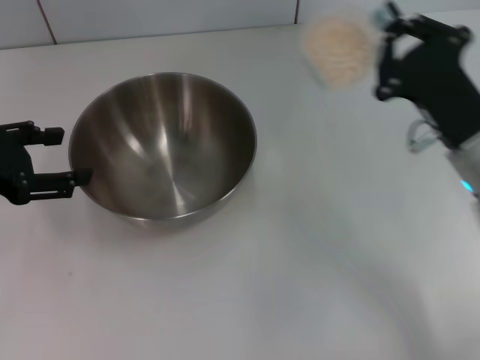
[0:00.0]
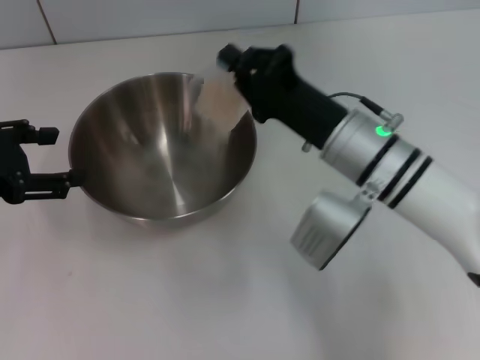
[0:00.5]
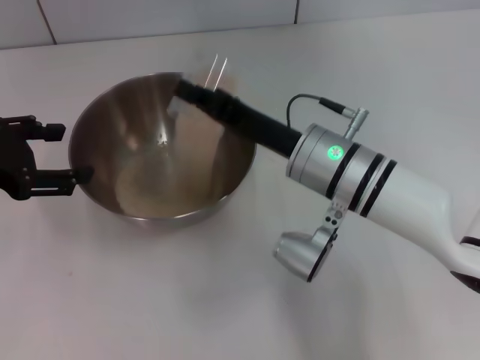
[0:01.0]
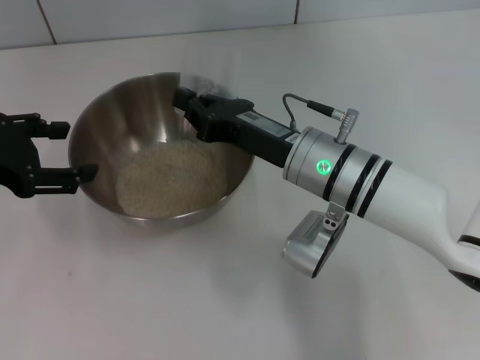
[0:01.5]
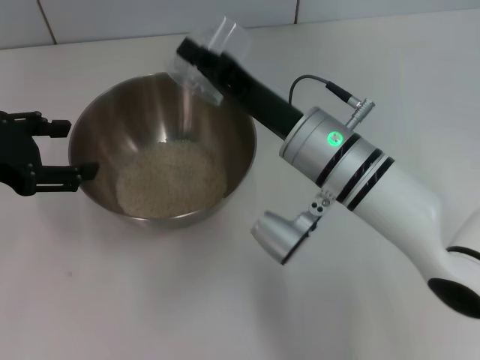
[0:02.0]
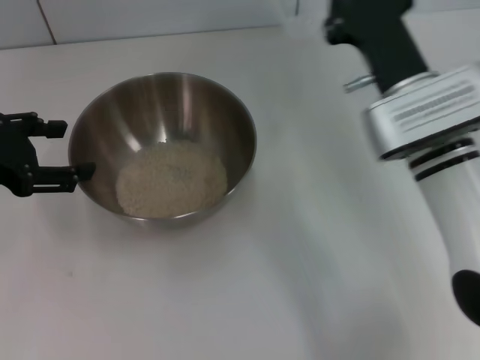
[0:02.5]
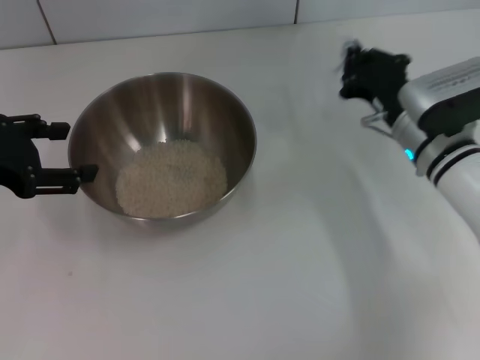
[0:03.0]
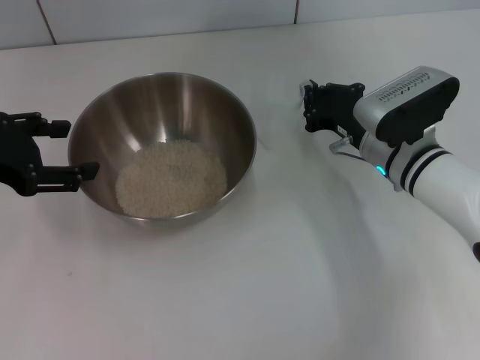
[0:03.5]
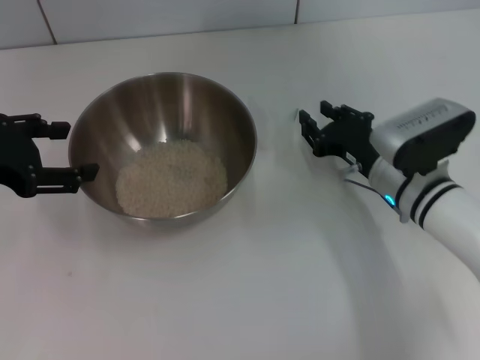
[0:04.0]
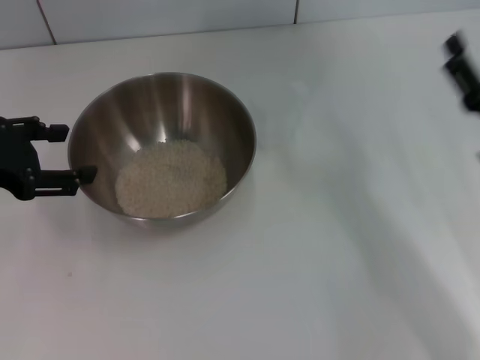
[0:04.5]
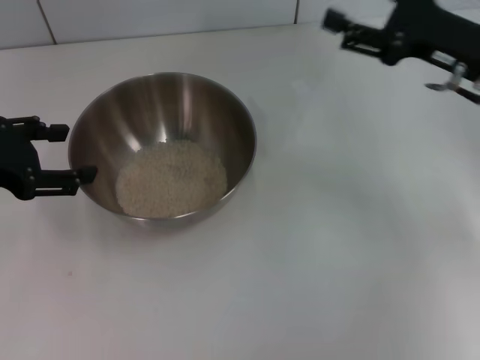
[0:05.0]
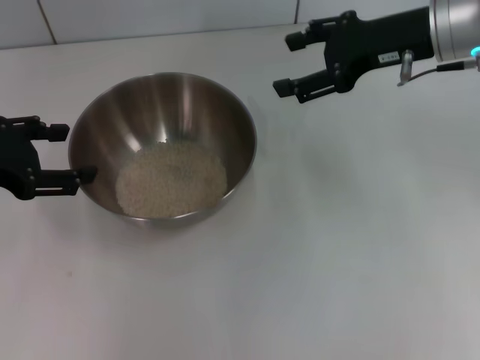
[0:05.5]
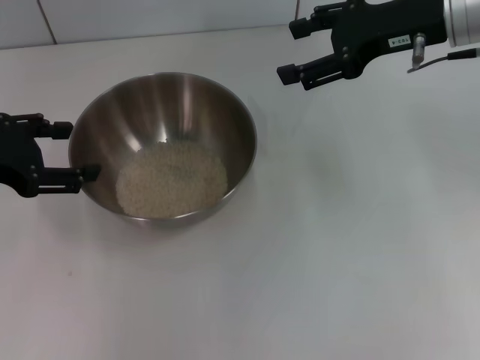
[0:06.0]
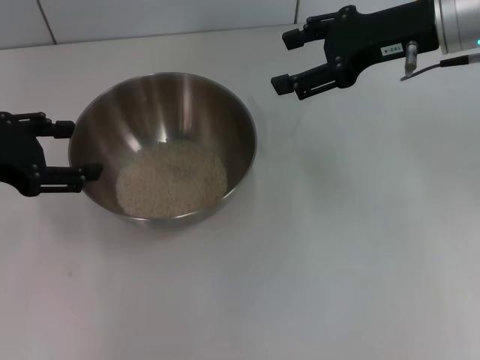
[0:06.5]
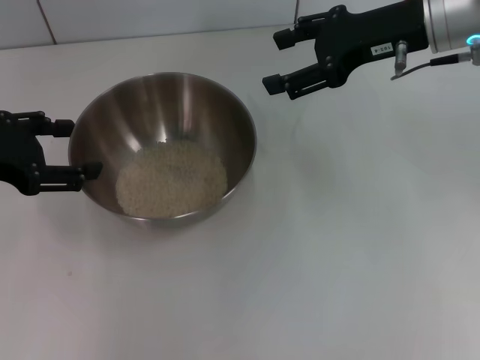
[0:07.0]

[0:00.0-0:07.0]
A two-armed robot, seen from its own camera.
Task of the whole recording: Place the bowl in the middle of the table with one hand and pour the rice from the grain cup into it with the other hand.
Step, 0:00.0 to 0:02.0: Pour the rice from the cup into the bowl with the right gripper.
Step, 0:02.5 to 0:04.0: Place the cup on the table with the right gripper.
0:00.0 to 0:02.0: The right gripper shifts approximately 15 cm to the left.
0:02.0 to 0:03.5: The right gripper is displaced to the right and downward by some 10 cm.
0:03.5 to 0:05.0: The right gripper travels upward and to the right by approximately 15 cm, and opens its fingers.
0:05.0 to 0:07.0: The right gripper heads upward and to the left, covering about 10 cm.

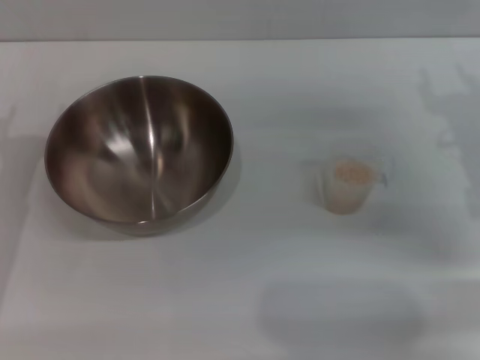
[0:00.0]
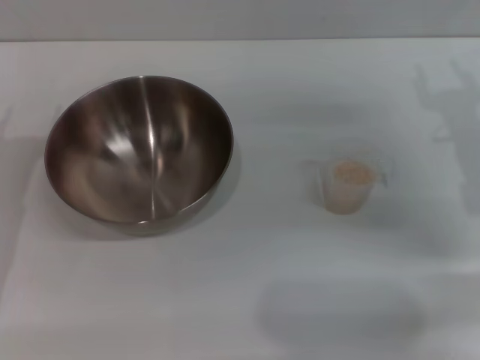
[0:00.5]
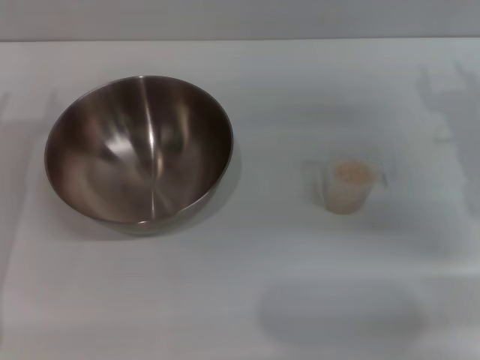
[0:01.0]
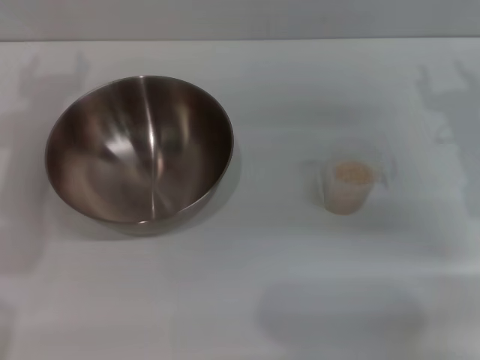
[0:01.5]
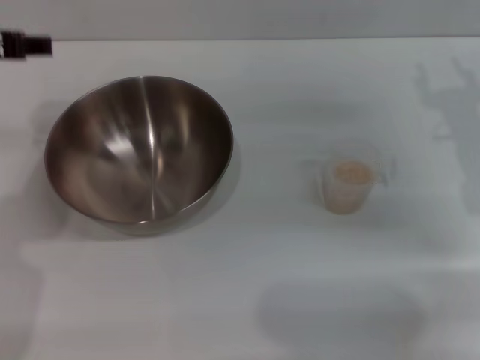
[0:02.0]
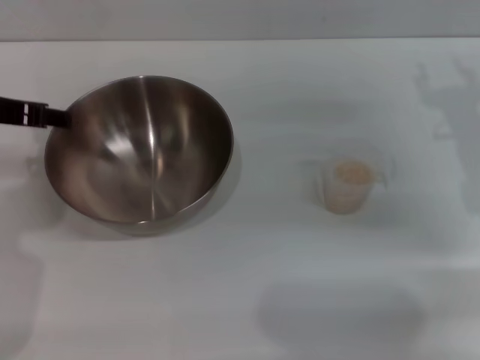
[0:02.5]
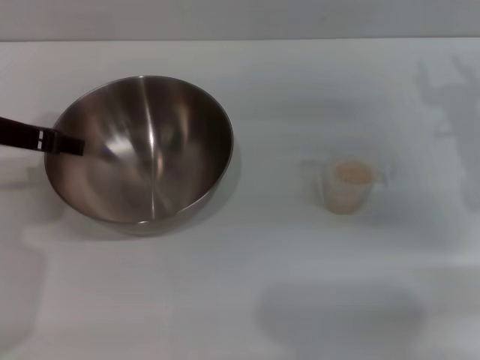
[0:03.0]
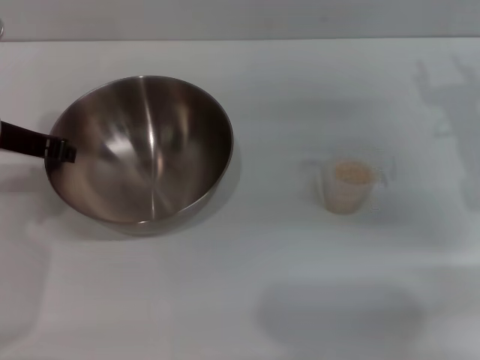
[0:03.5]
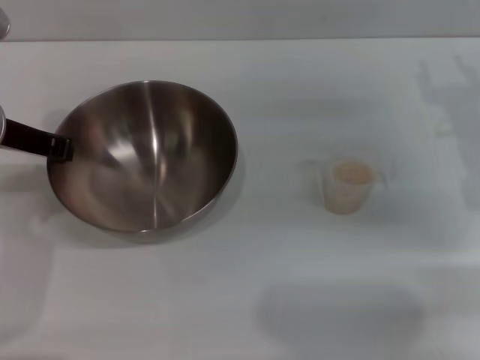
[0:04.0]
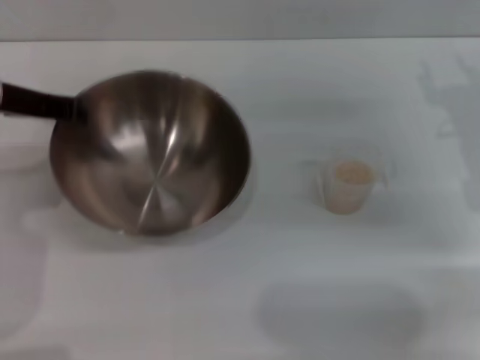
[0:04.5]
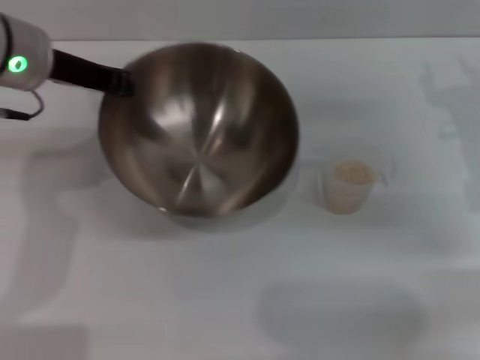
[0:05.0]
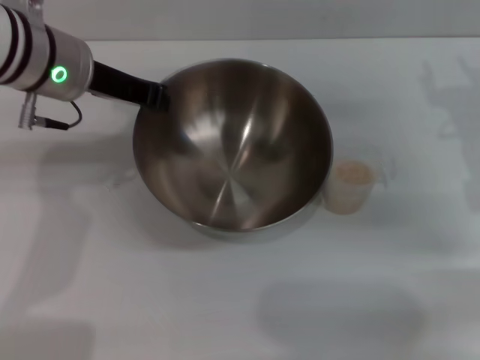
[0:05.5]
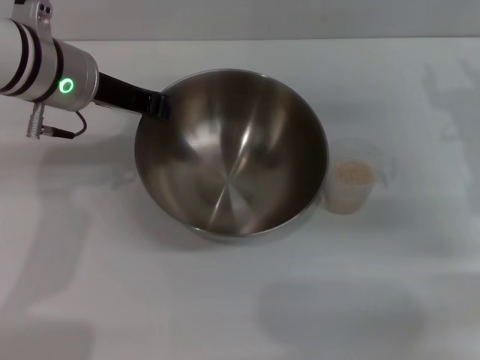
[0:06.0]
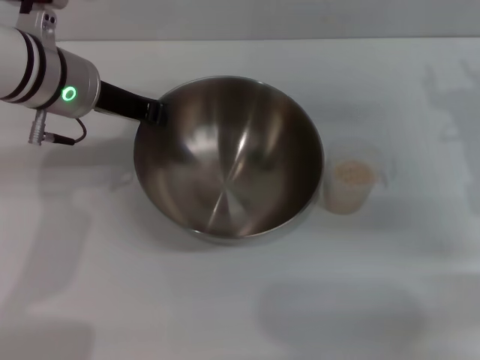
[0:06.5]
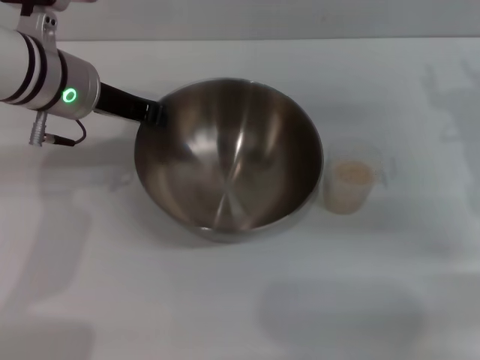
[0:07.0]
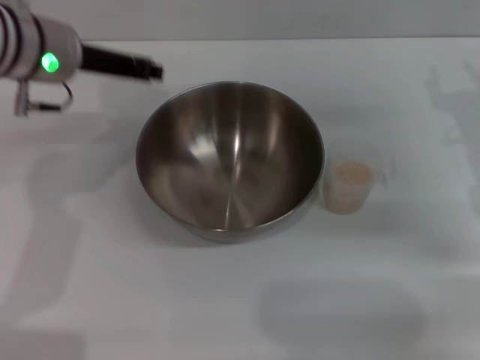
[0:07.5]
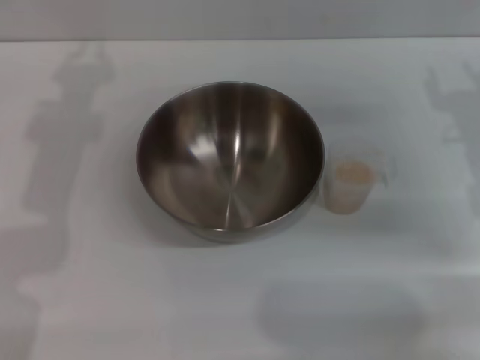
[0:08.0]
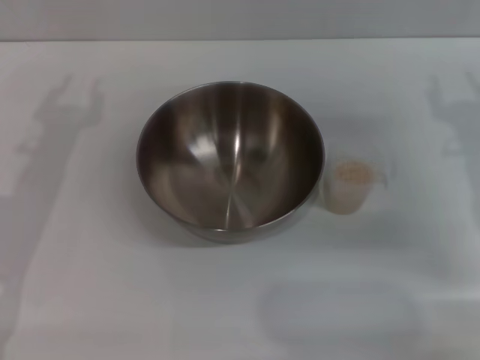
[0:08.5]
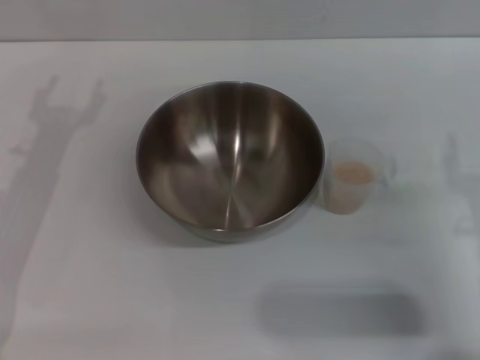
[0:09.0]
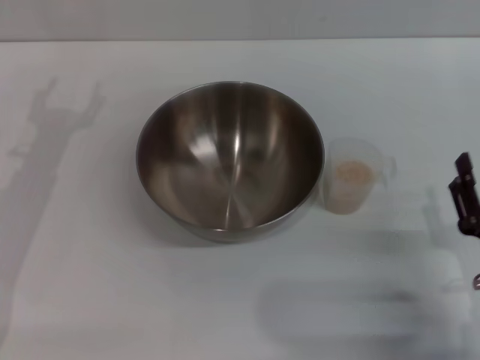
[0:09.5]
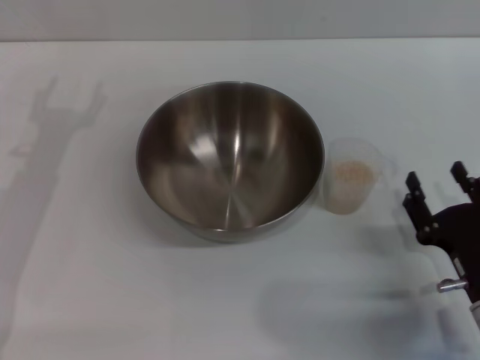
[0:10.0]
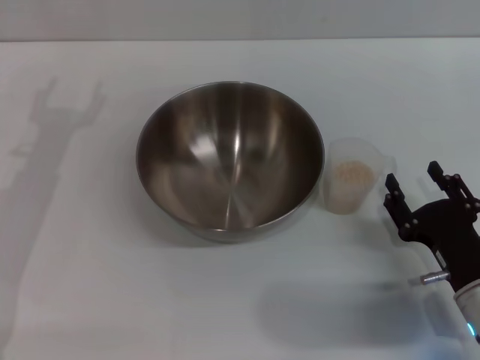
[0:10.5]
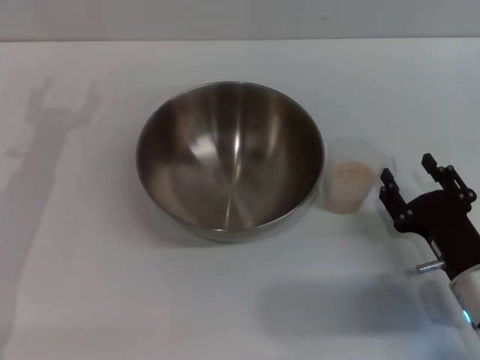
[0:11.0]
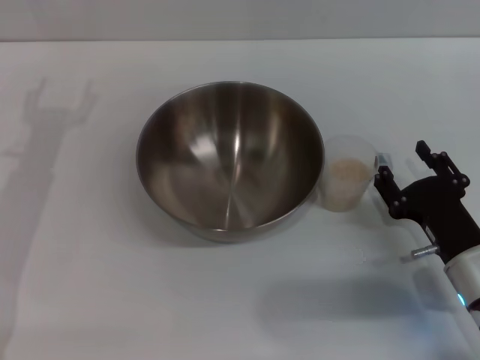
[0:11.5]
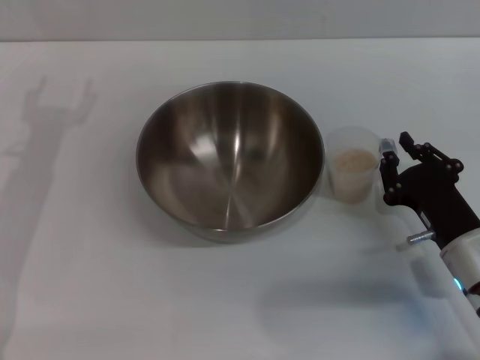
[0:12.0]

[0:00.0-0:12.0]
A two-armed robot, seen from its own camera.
Task of the whole recording: Place the bowl in the middle of the table with one hand and pour the rice from the grain cup into it with the other hand.
Step, 0:00.0 to 0:05.0: Pick up the bowl with the left gripper.
Step, 0:05.5 to 0:07.5: Place the bowl in the center of view with the left gripper.
0:00.0 to 0:02.0: The left gripper heads upward and forward, covering about 15 cm.
0:02.0 to 0:04.0: The left gripper goes some 5 cm downward, and closes up.
0:04.0 to 0:06.0: The left gripper heads to the right, covering approximately 5 cm.
0:06.0 to 0:08.0: The left gripper goes roughly 10 cm to the left.
0:08.0 to 0:10.0: The right gripper is displaced backward and downward by approximately 20 cm.
0:10.0 to 0:12.0: The right gripper goes roughly 5 cm forward, and closes up.

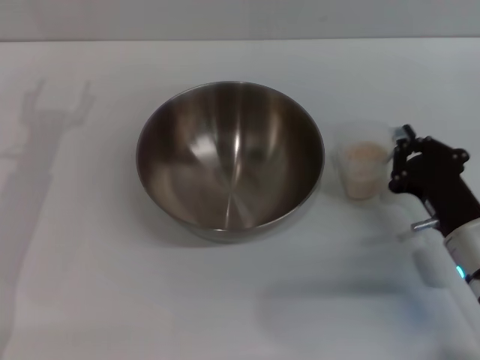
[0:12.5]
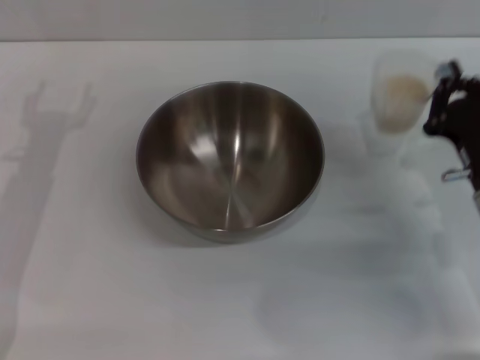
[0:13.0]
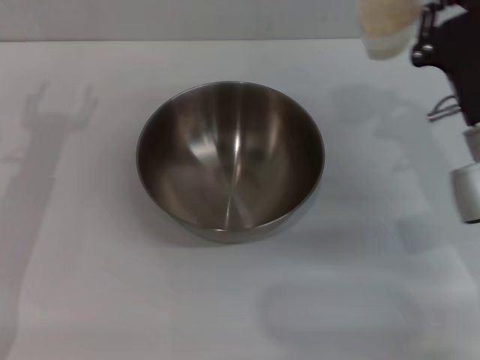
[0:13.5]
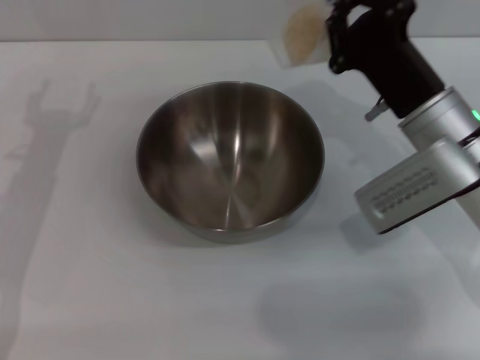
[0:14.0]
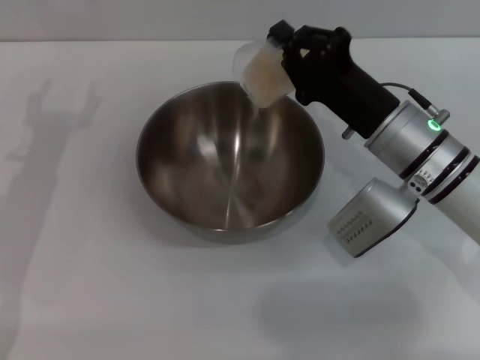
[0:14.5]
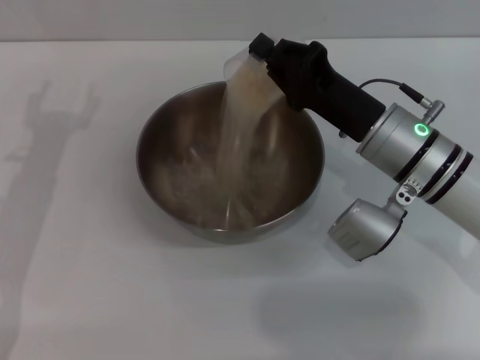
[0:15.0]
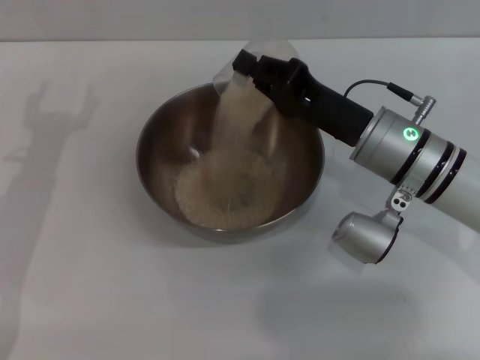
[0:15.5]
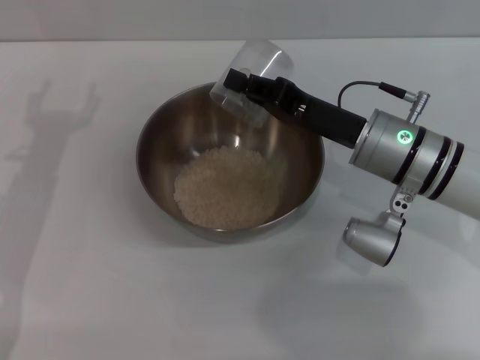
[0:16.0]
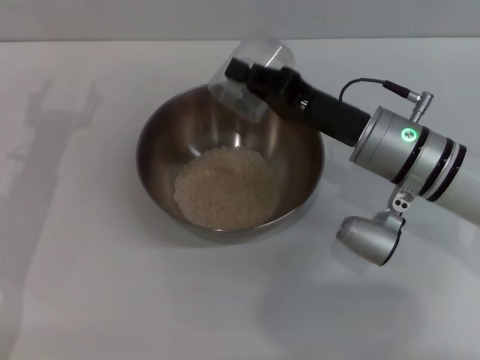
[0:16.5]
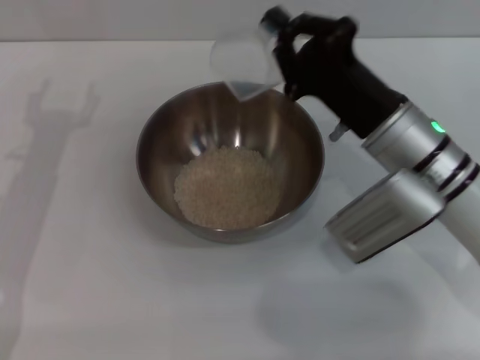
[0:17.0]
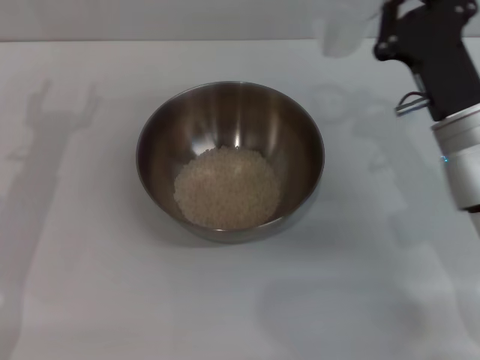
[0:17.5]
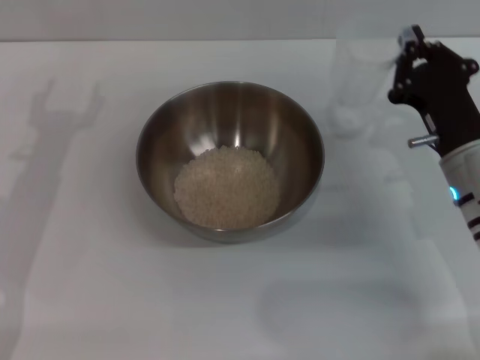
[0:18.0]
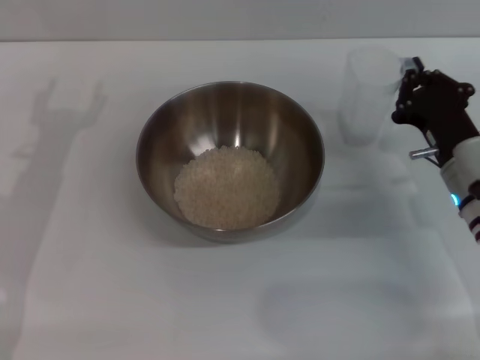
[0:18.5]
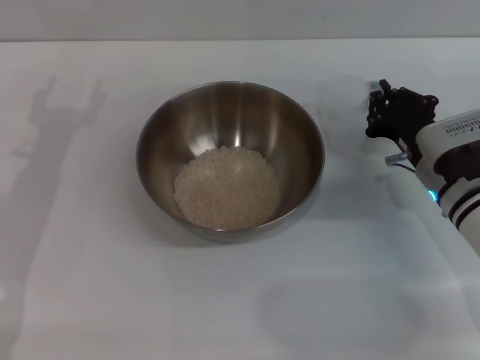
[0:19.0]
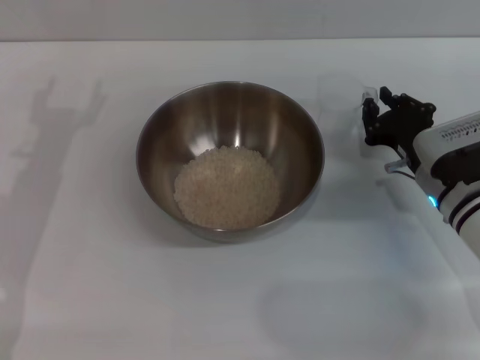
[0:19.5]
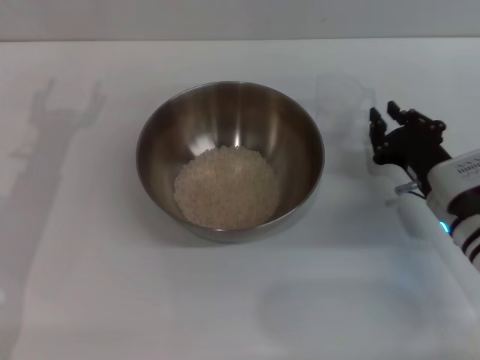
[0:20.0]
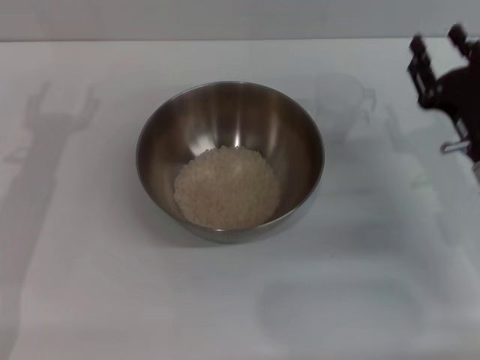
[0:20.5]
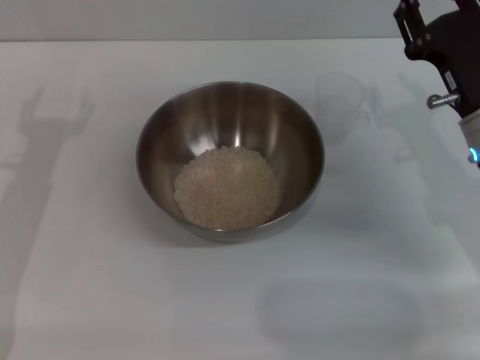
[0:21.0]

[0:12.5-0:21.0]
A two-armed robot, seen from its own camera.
Task of the whole recording: Place the bowl in the middle of the table with one hand and pour the rice from the grain cup into it with the other hand.
Step, 0:13.5 to 0:17.0: Pour the rice from the cup into the bowl with the right gripper.
Step, 0:17.5 to 0:20.0: Place the cup on the table with the right gripper.
0:12.5 to 0:14.5: The right gripper heads forward, upward and to the left, covering about 15 cm.
0:16.5 to 0:19.0: The right gripper is displaced to the right and downward by about 10 cm.
0:19.0 to 0:21.0: The right gripper goes about 5 cm upward, and opens.
